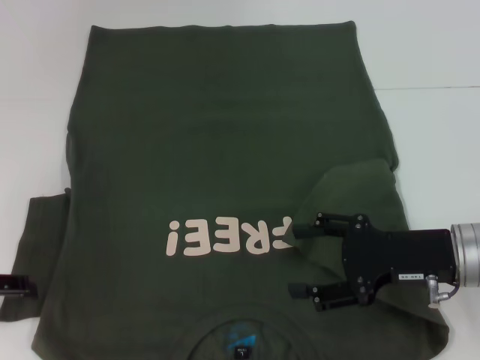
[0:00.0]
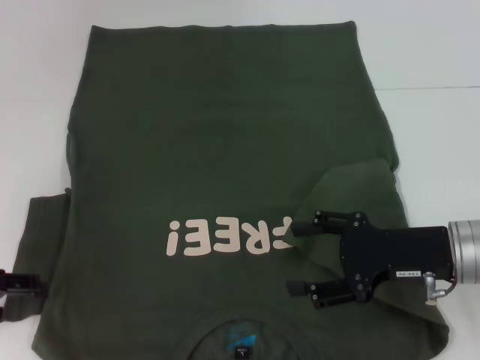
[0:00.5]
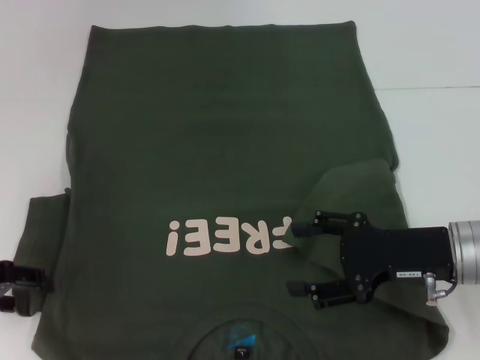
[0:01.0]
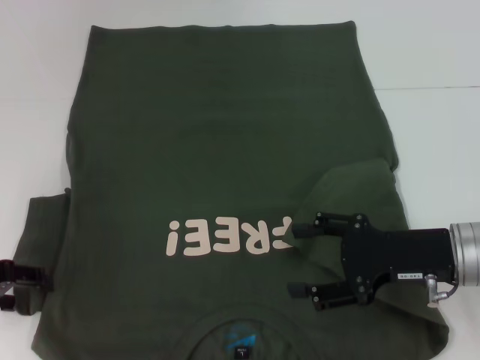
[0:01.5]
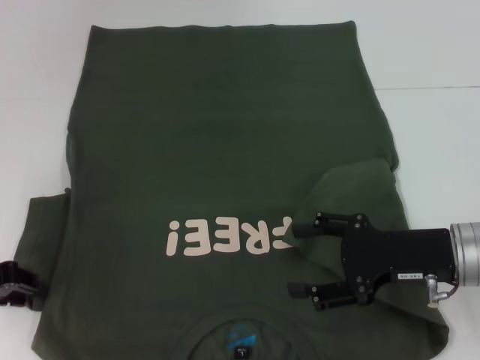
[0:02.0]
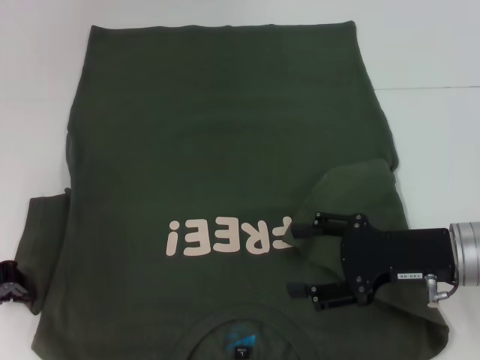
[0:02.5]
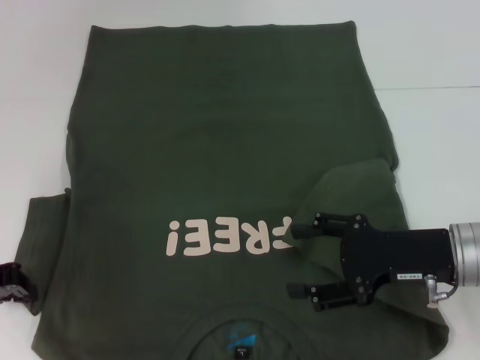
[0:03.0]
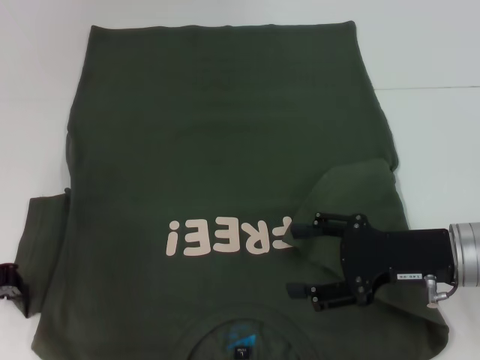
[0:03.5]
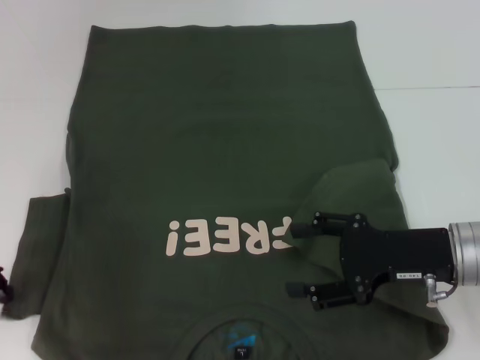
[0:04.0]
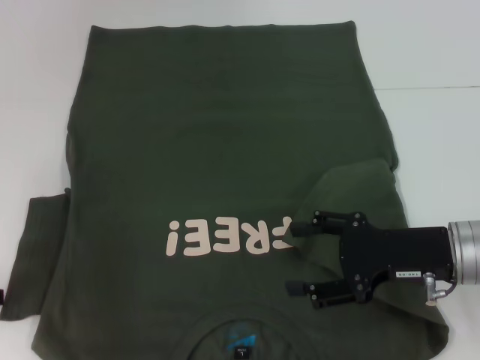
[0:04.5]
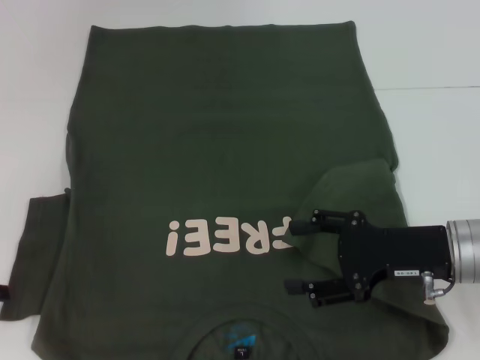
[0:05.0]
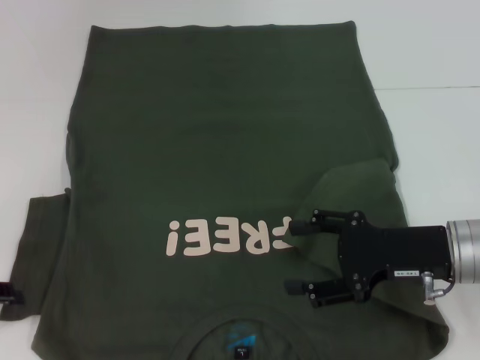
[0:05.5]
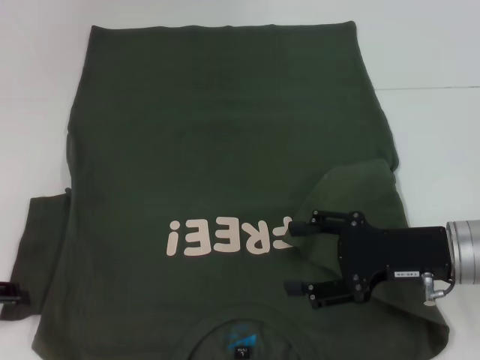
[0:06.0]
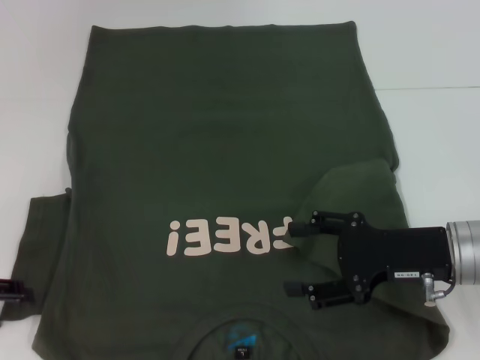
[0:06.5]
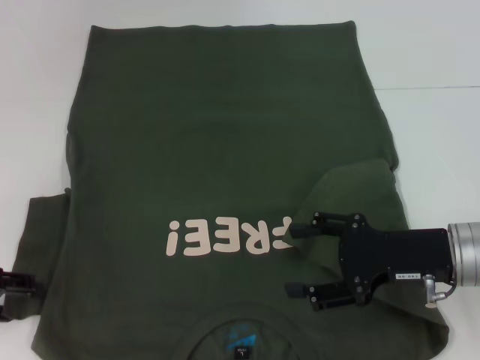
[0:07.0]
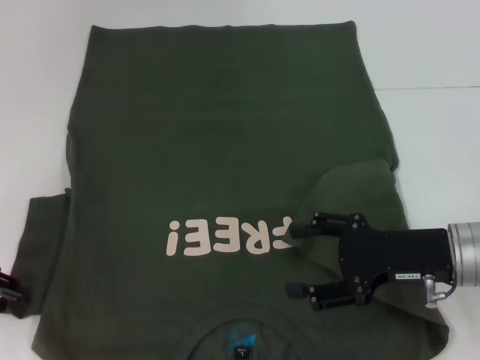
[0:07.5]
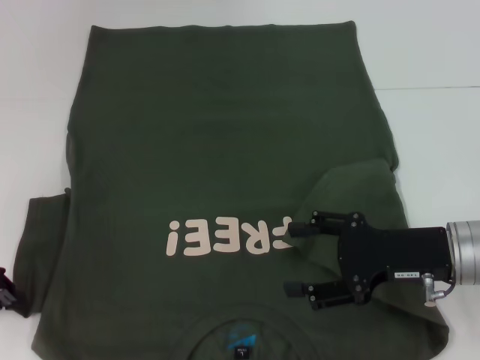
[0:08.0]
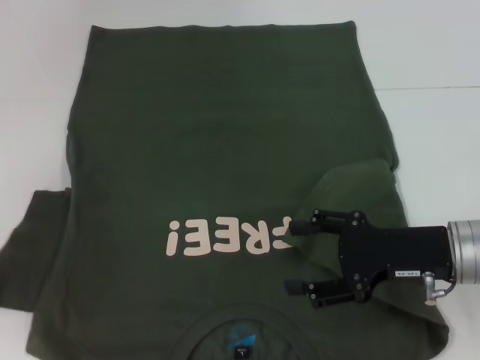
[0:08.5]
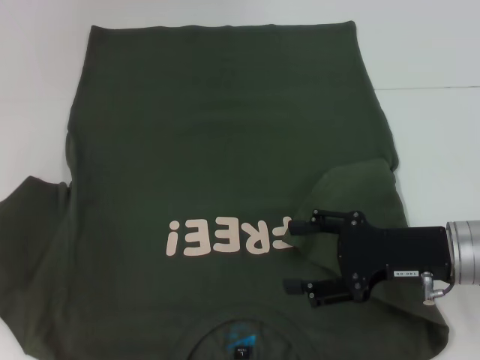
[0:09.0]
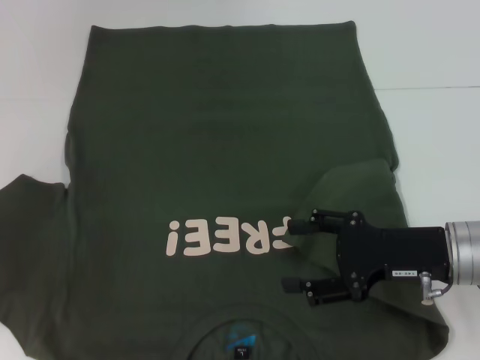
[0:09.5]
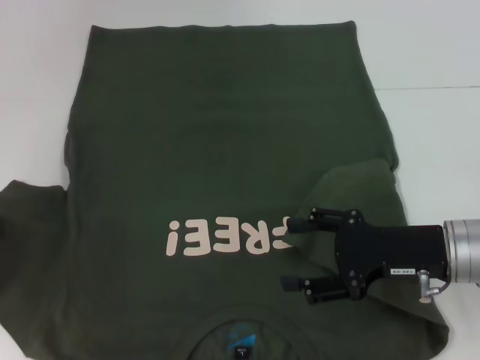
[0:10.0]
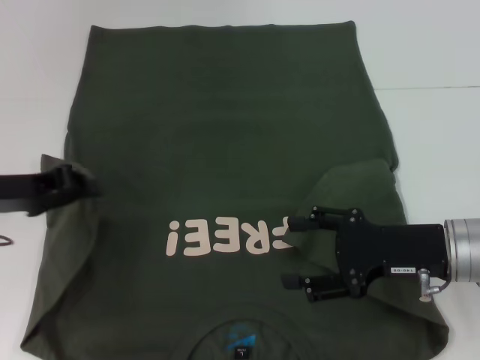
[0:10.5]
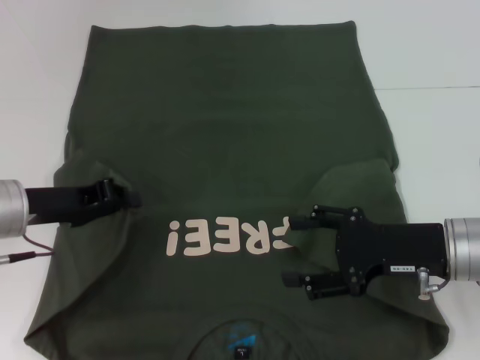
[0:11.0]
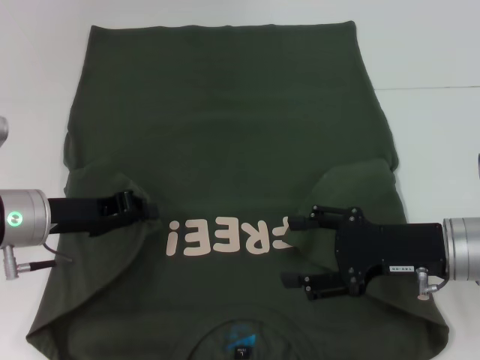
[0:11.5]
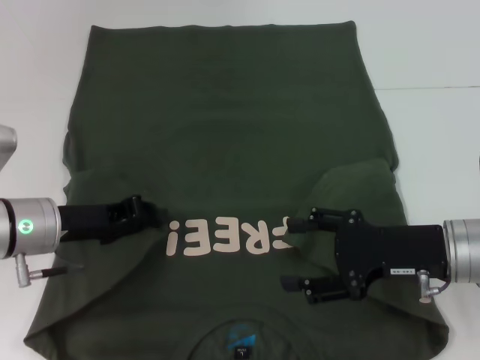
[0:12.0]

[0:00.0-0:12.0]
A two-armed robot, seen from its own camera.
0:00.0 to 0:02.0: The left gripper closes up.
0:02.0 to 0:04.0: The left gripper closes its fingers.
0:08.0 to 0:10.0: The left gripper shifts roughly 5 cm upward.
0:10.0 to 0:12.0: The left gripper travels to the right and downward by approximately 15 cm.

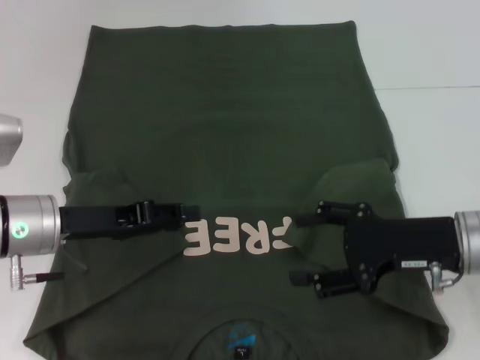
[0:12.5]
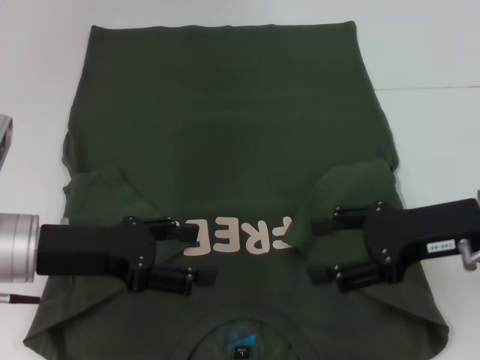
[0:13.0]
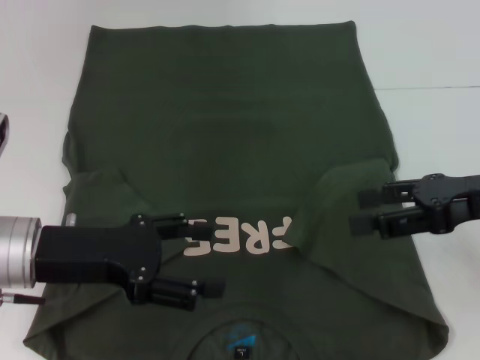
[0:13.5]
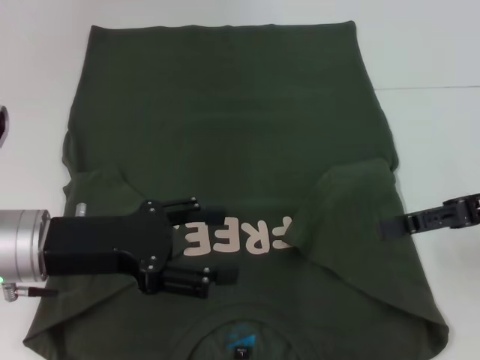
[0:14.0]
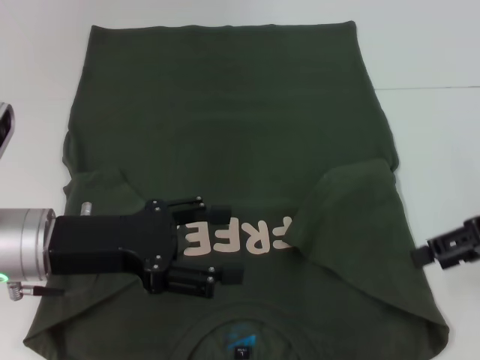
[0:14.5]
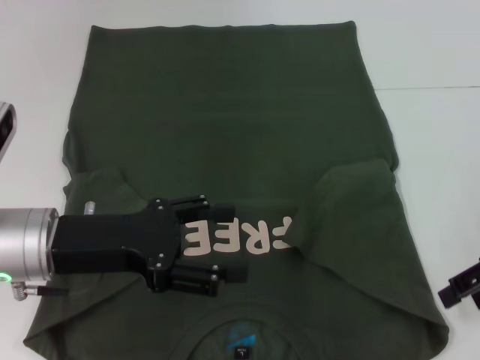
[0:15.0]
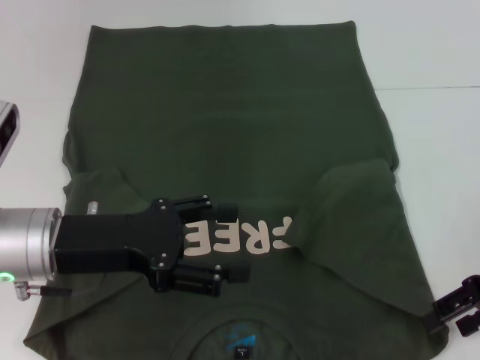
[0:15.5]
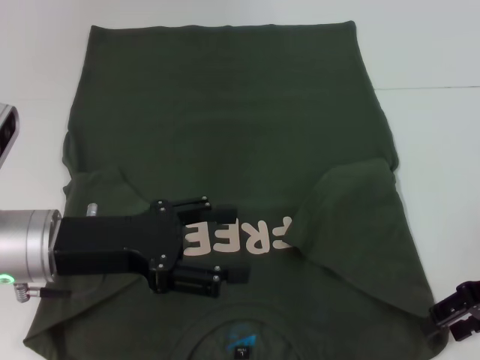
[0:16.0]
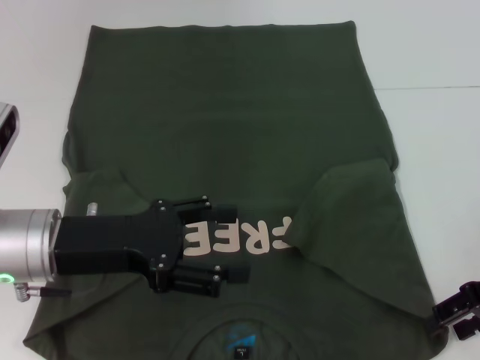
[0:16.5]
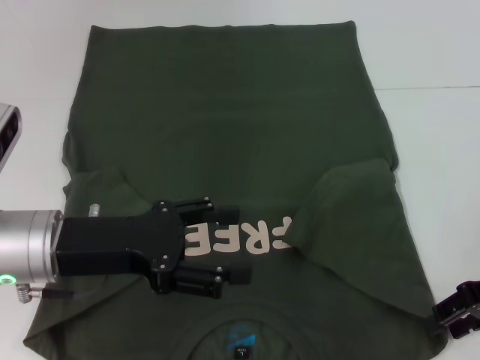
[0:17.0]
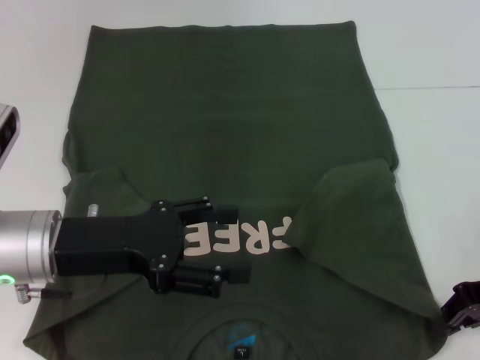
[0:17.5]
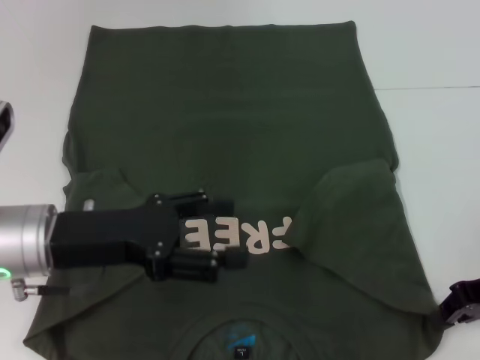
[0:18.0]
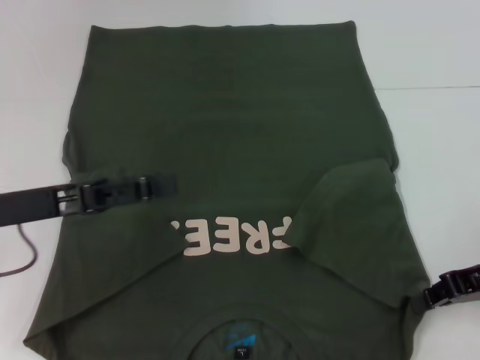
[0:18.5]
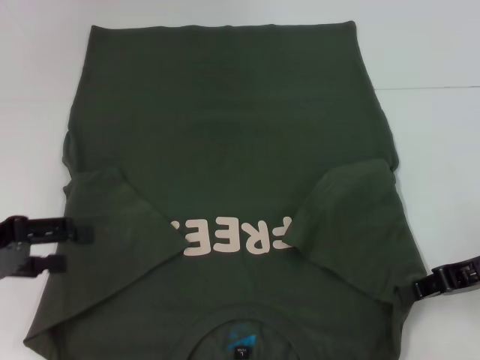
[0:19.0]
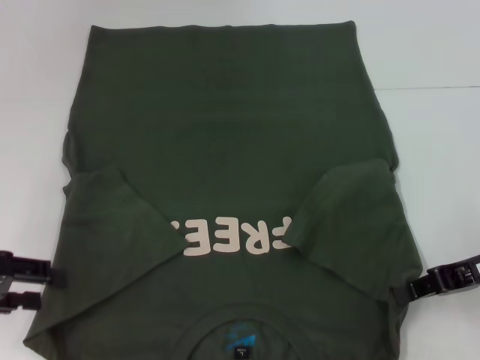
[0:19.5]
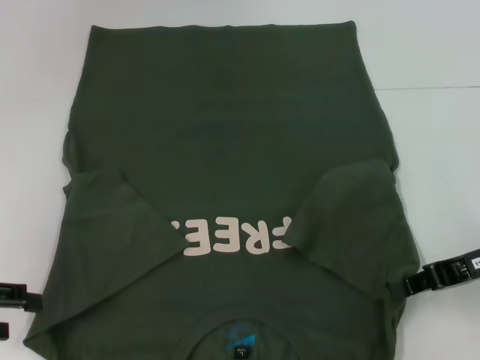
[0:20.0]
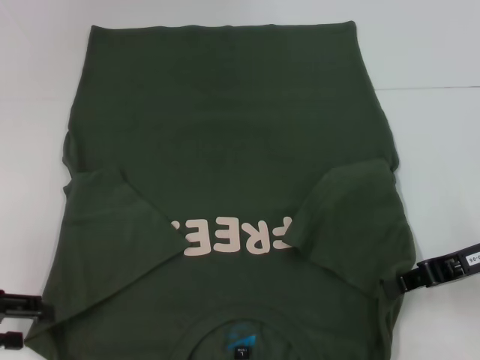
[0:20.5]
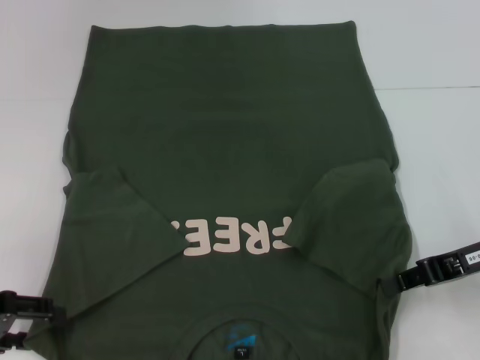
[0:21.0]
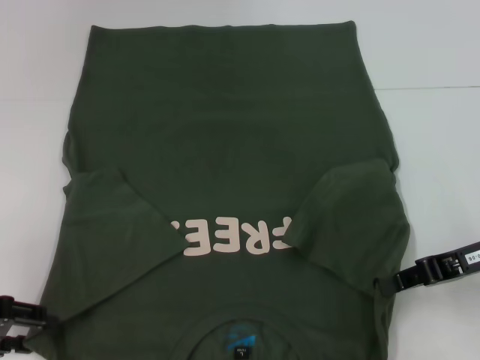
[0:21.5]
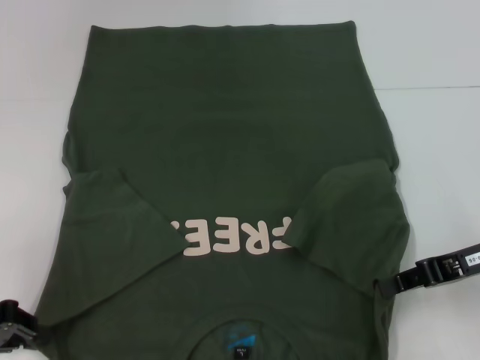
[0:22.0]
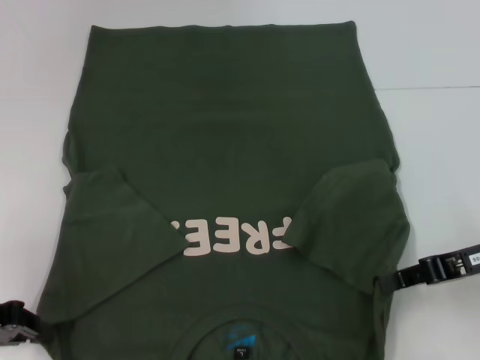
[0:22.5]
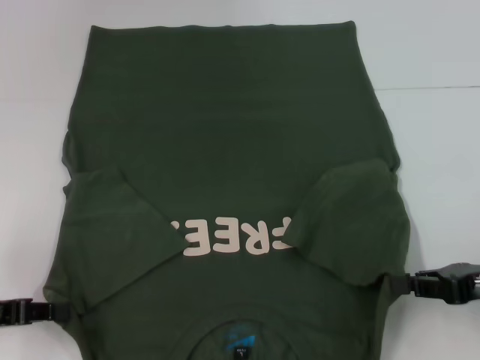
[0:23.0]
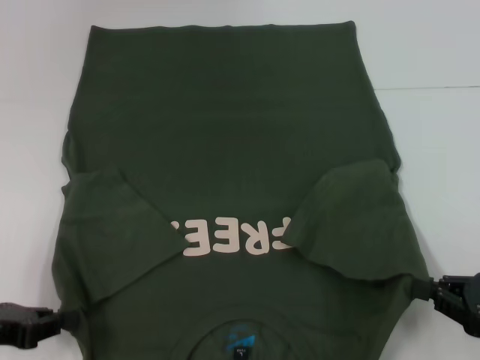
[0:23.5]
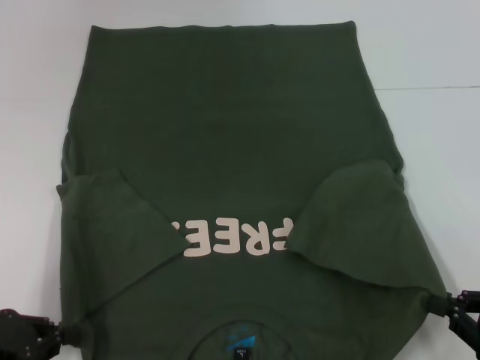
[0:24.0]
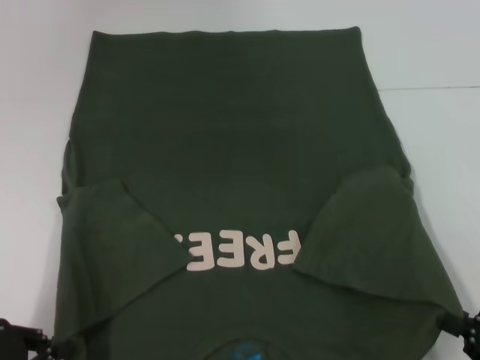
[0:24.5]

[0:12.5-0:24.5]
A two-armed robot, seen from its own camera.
Step, 0:12.5 to 0:17.5: Grab the bottom right corner with your right hand.
Step, 0:18.0 to 0:22.0: Grab the bottom left corner with your left hand.
0:12.5 to 0:14.5: The right gripper is displaced to the right and upward by some 10 cm. The left gripper shifts by some 5 cm, and opens up.
0:14.5 to 0:16.5: The right gripper heads downward, covering approximately 5 cm.
0:16.5 to 0:18.5: The right gripper closes up; the left gripper heads to the left, covering about 5 cm.
0:18.5 to 0:20.5: The left gripper goes approximately 10 cm to the left.
0:20.5 to 0:22.5: The left gripper closes up.
0:22.5 to 0:24.5: The left gripper goes approximately 5 cm backward, while the right gripper heads backward and downward, covering some 20 cm.

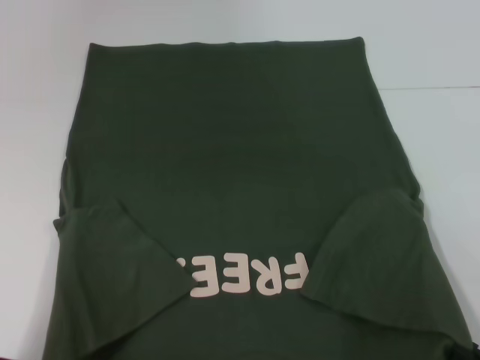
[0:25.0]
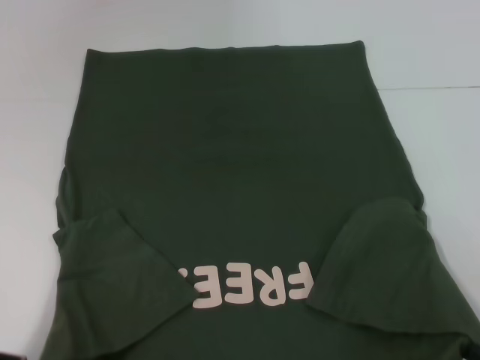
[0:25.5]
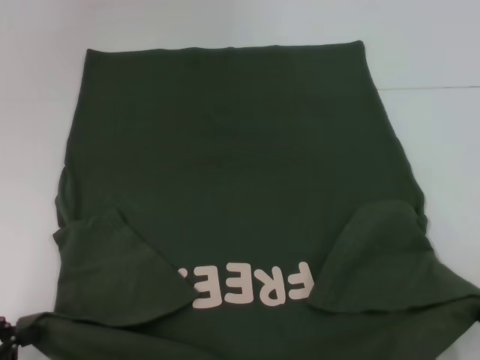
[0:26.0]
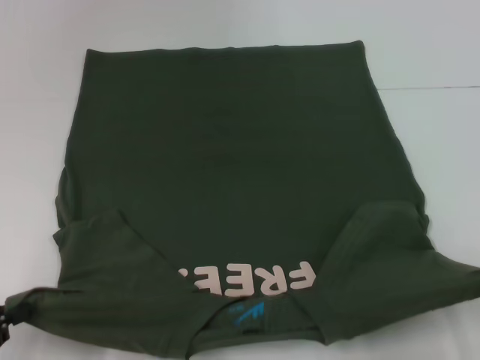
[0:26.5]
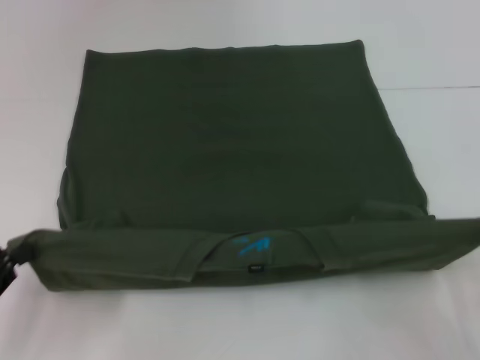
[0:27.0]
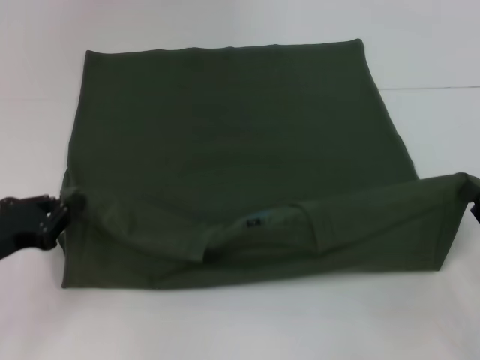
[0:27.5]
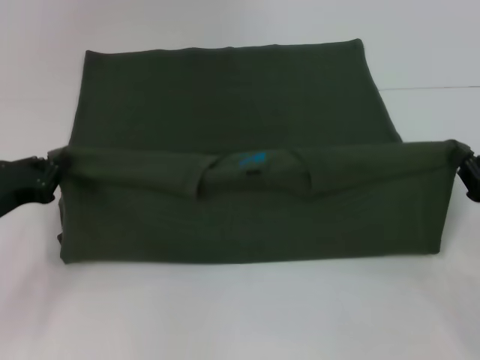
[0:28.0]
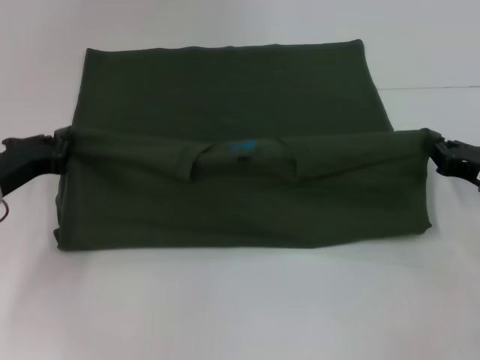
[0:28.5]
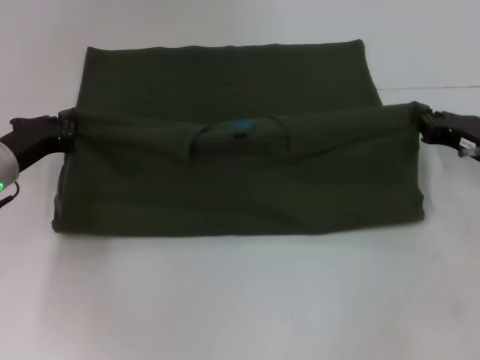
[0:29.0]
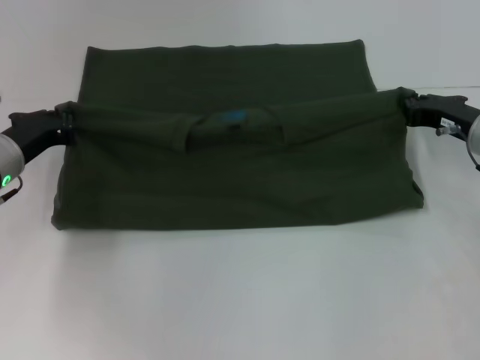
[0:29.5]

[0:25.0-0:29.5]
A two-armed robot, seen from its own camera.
0:25.0 to 0:27.0: The right gripper heads forward, covering approximately 5 cm.
0:27.0 to 0:29.5: The right gripper heads forward, covering about 25 cm. The left gripper shifts about 20 cm forward and to the right.
